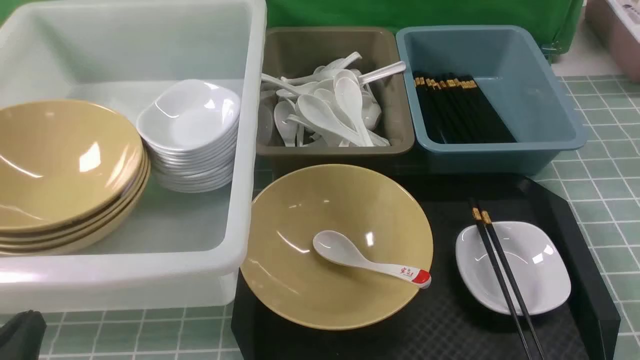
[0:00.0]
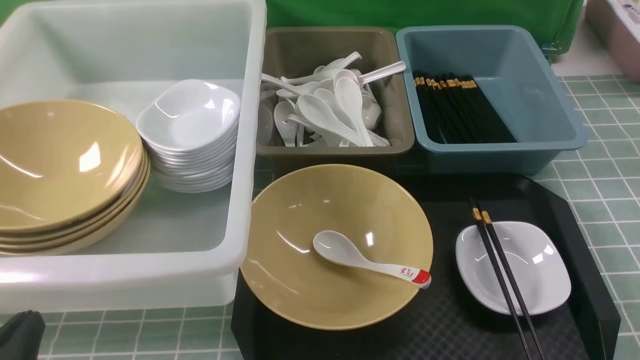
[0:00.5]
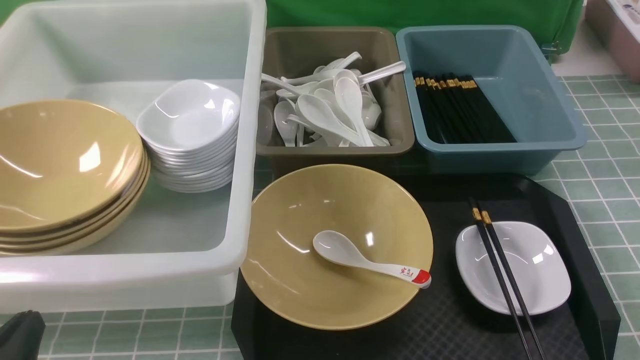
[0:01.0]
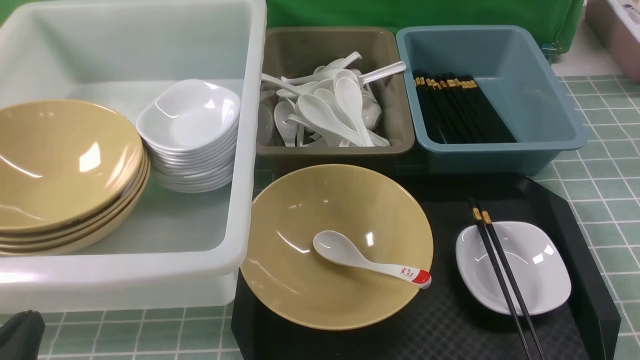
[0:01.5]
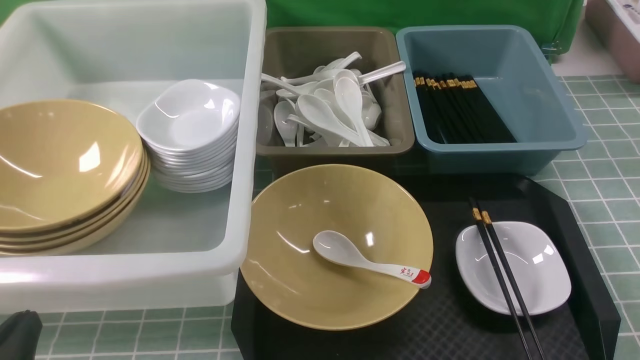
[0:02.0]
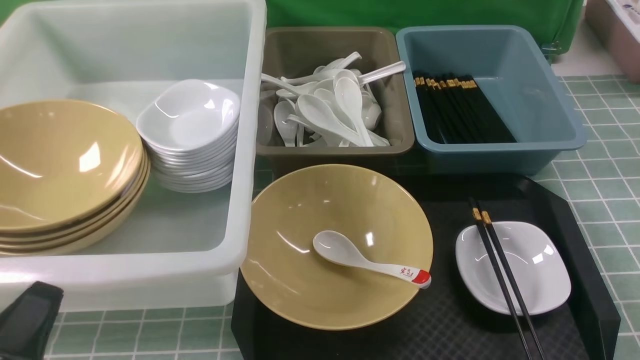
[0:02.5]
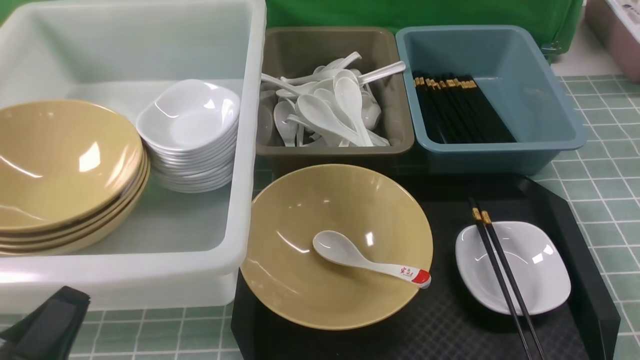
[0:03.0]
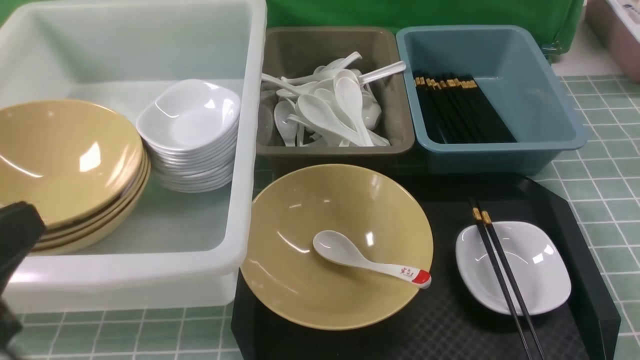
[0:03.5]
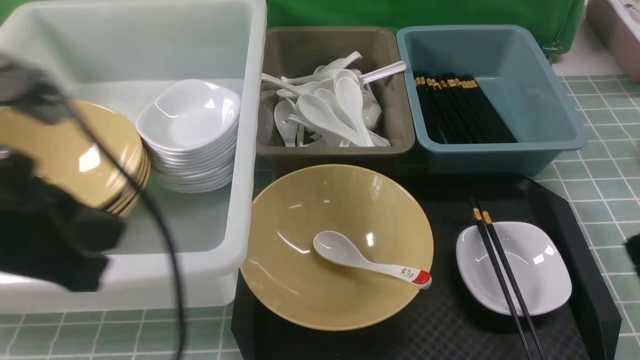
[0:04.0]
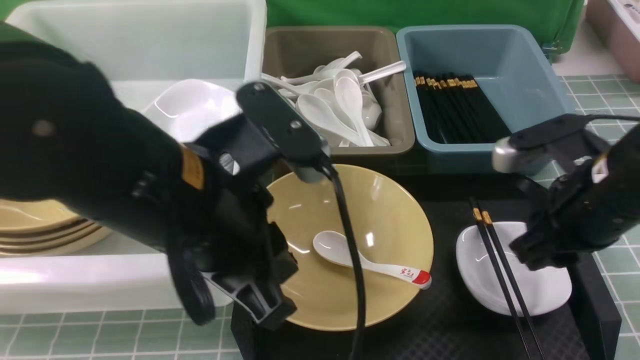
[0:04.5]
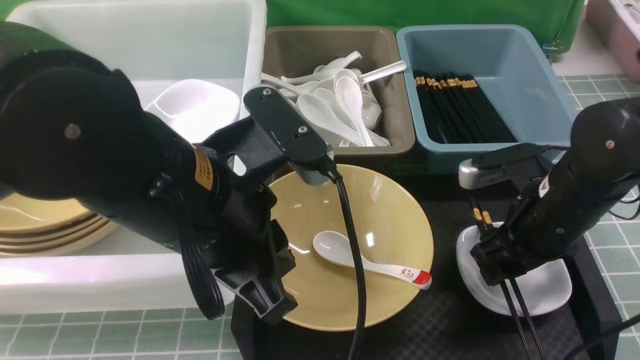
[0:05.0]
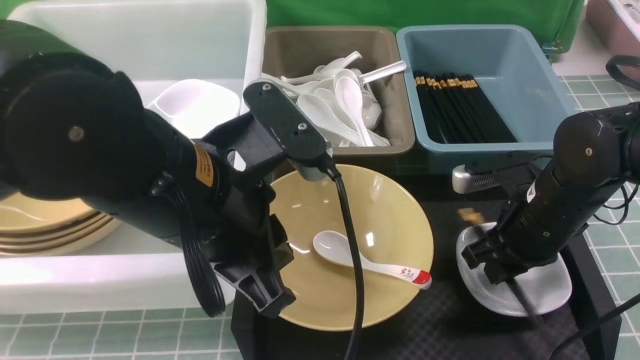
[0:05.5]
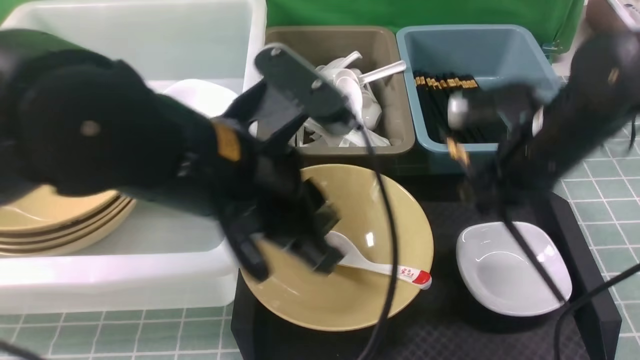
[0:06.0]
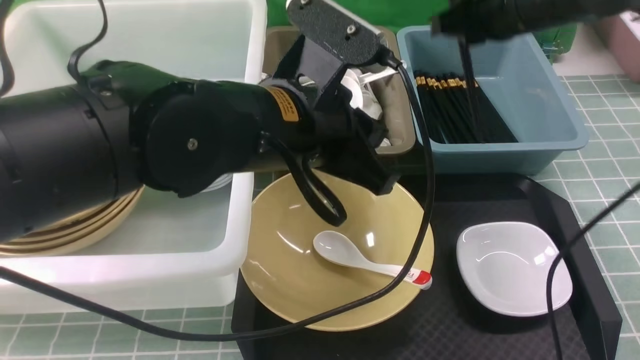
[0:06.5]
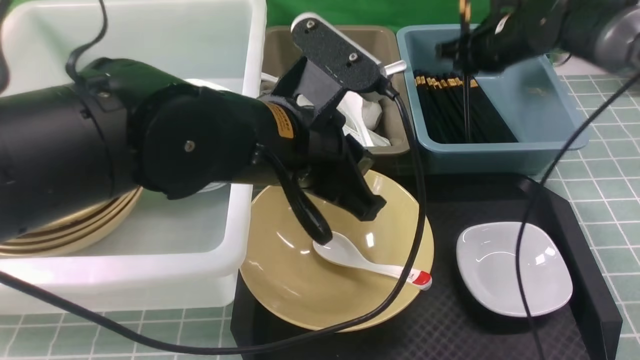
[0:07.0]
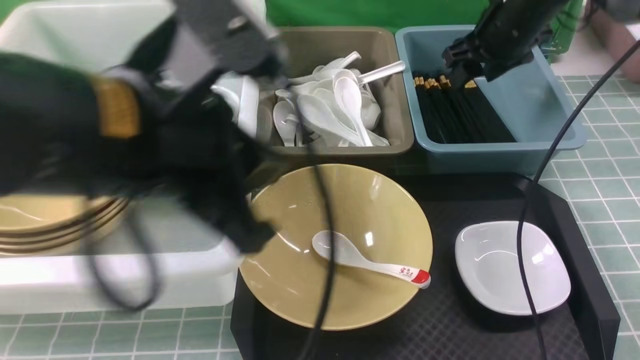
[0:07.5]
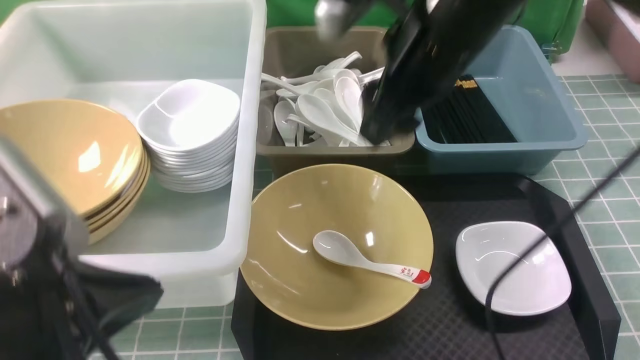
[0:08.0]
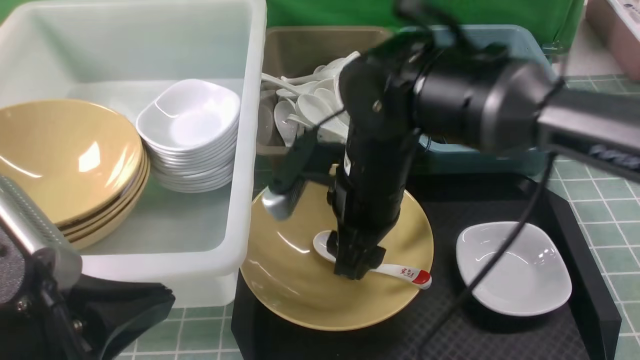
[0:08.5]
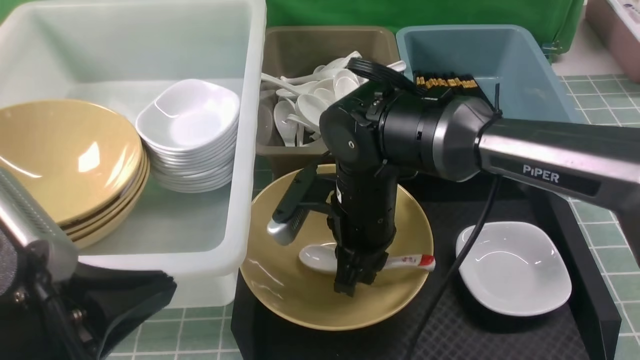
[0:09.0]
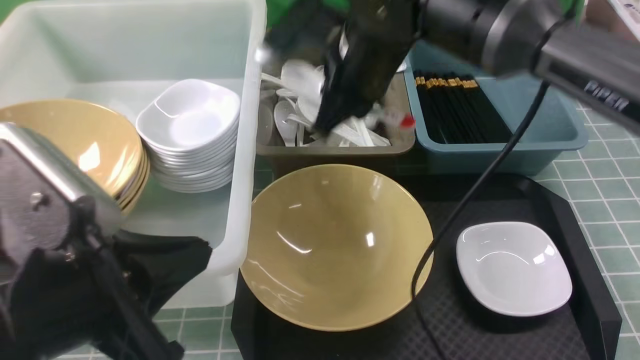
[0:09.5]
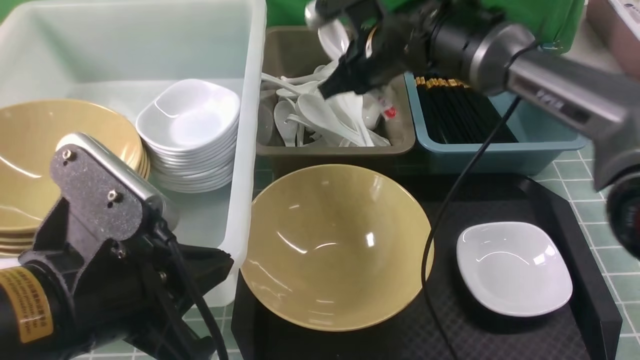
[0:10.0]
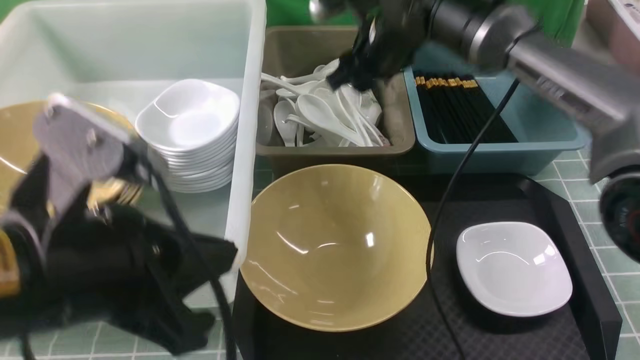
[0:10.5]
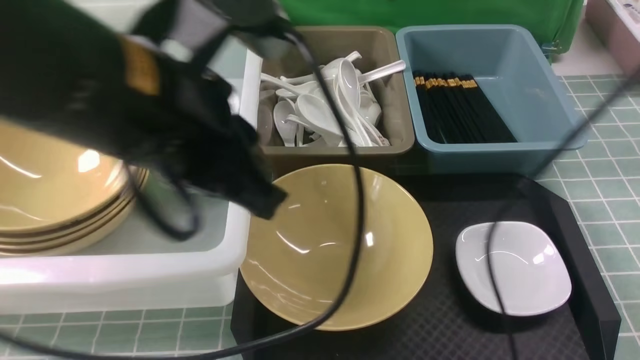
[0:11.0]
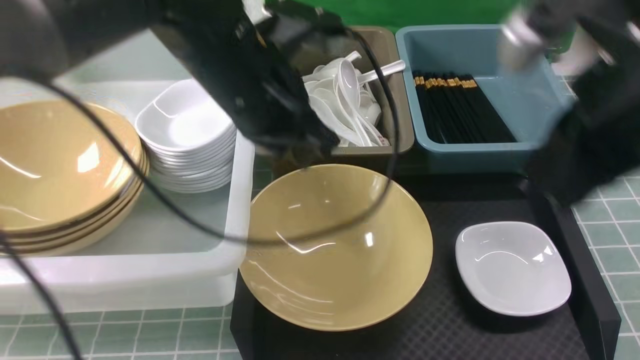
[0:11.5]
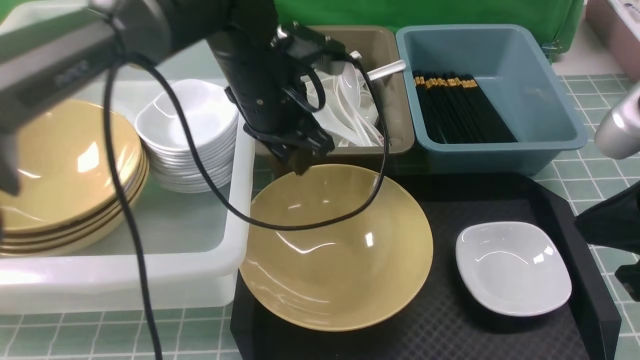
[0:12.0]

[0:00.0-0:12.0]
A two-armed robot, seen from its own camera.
Task of the whole recording: on blue table put chopsticks spoon bowls plates into blue grey white boxes.
Step, 0.0 to 5.5 s: use the right arm to grab the chopsticks.
Step, 6.0 to 7.0 s: use the right arm to put the chopsticks into the small storage box on the right.
Step, 8.0 to 9.0 s: use the right arm to grab the soup spoon in the middle.
Step, 9.5 to 10.0 s: use the right arm to put the soup spoon into the small storage box in the middle.
0.0 to 2.0 s: Neither gripper changes place.
2.0 to 4.0 s: The left gripper shifts approximately 20 cm upward and forward.
4.0 to 6.0 s: The left gripper heads to the right and forward, covering roughly 15 cm; the right gripper goes about 15 cm forward and to the left, and opens and closes again.
6.0 to 8.0 s: The right gripper shifts roughly 15 cm to the left and upward, moves approximately 20 cm forward and comes back, and opens. Meanwhile the left gripper moves to the left and backward, about 15 cm.
8.0 to 10.0 s: The left gripper moves approximately 5 cm, while the right gripper heads forward and downward, covering about 15 cm, and closes up.
10.0 to 12.0 s: The right gripper shifts some 35 cm backward and to the right, and opens, then closes again. The left gripper heads forward, covering roughly 25 cm, and opens its fingers.

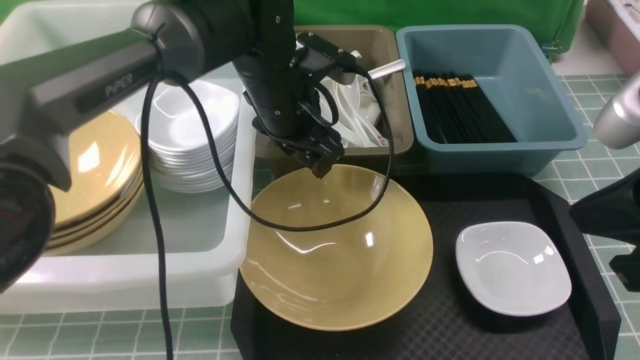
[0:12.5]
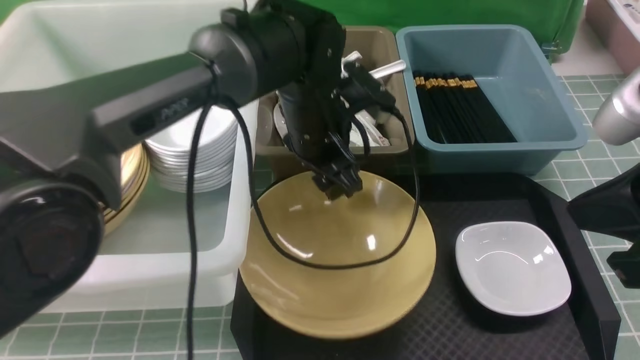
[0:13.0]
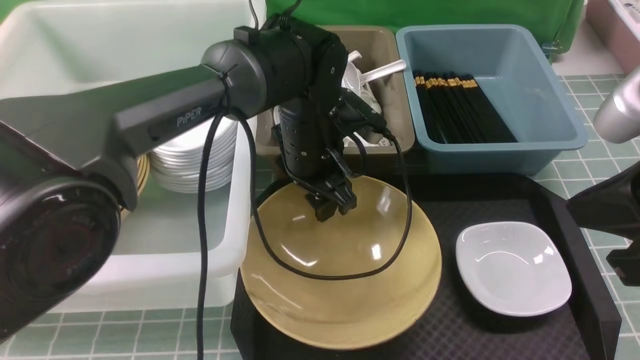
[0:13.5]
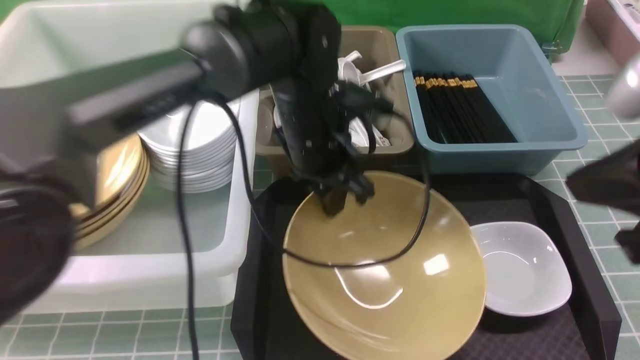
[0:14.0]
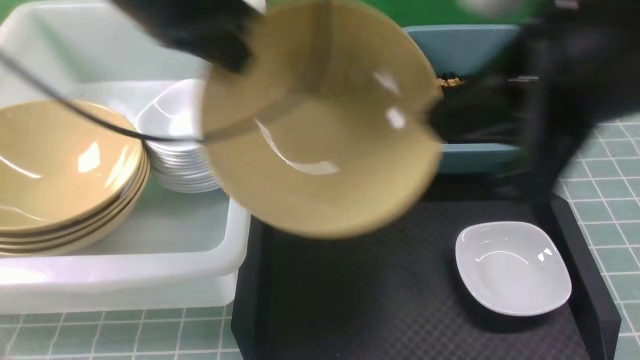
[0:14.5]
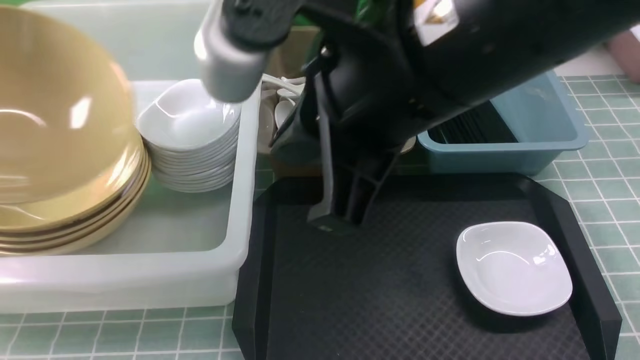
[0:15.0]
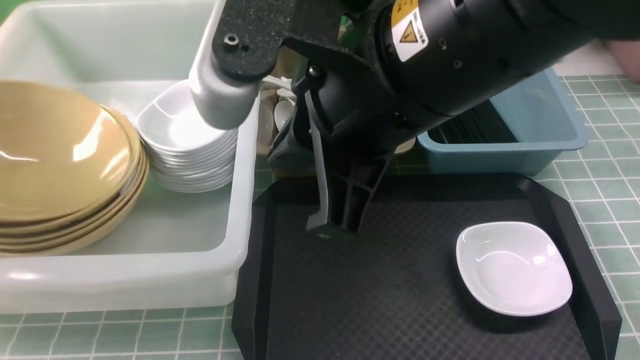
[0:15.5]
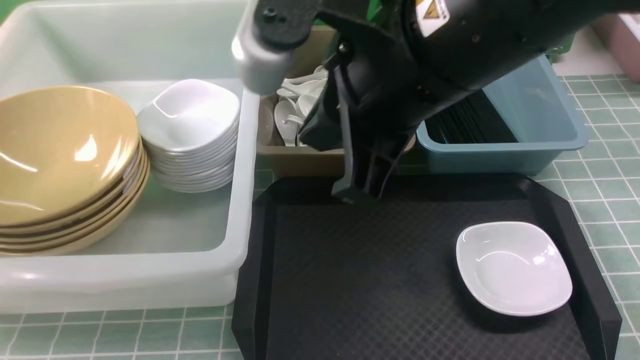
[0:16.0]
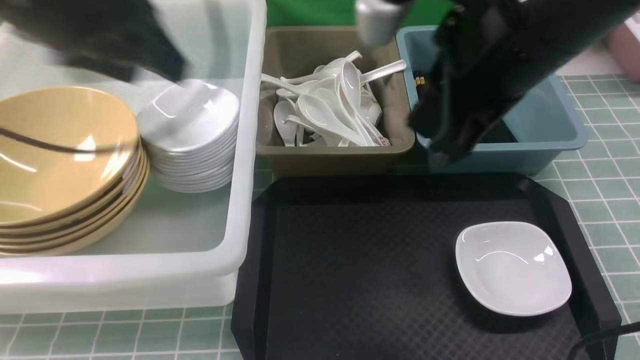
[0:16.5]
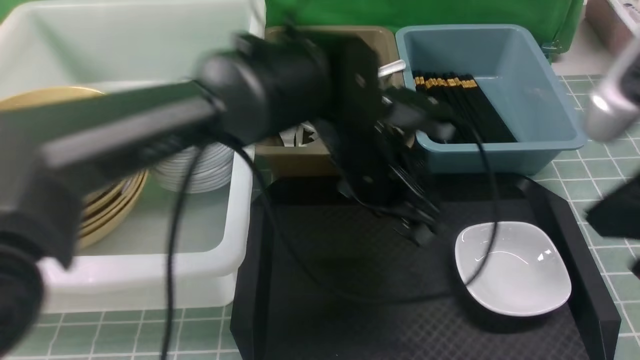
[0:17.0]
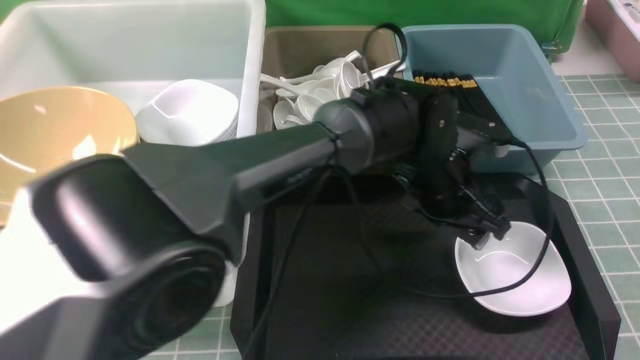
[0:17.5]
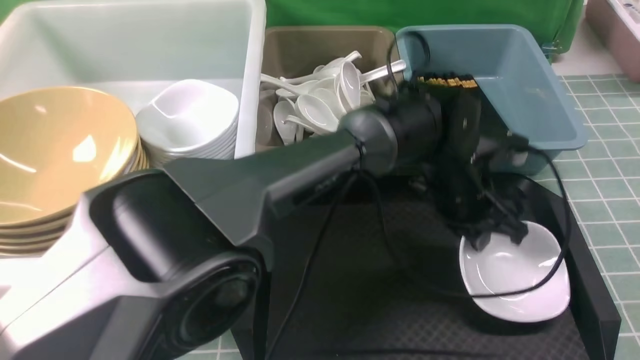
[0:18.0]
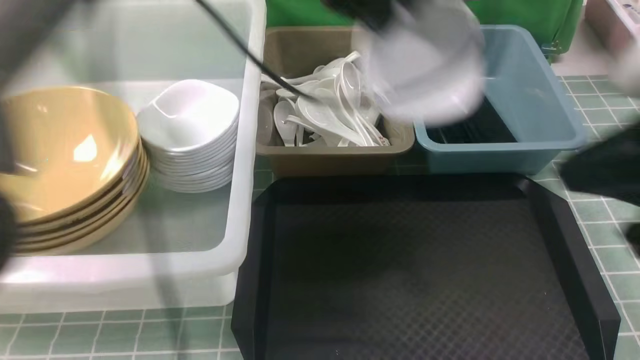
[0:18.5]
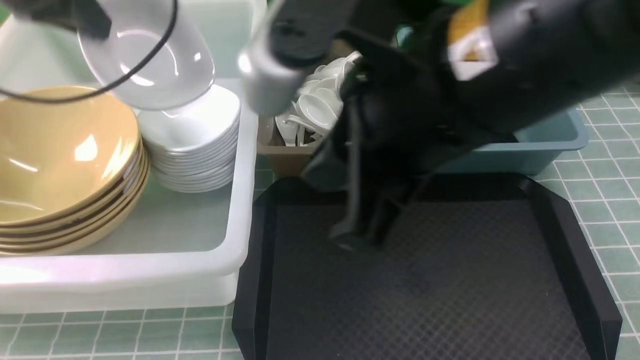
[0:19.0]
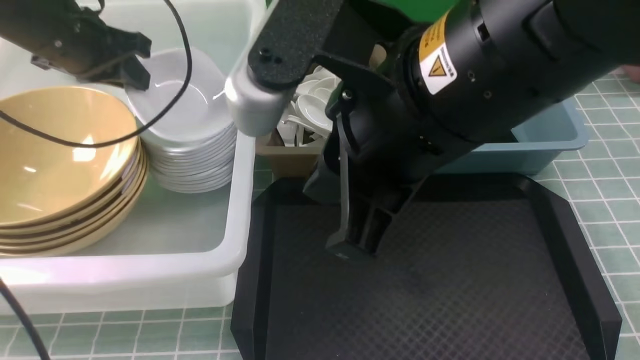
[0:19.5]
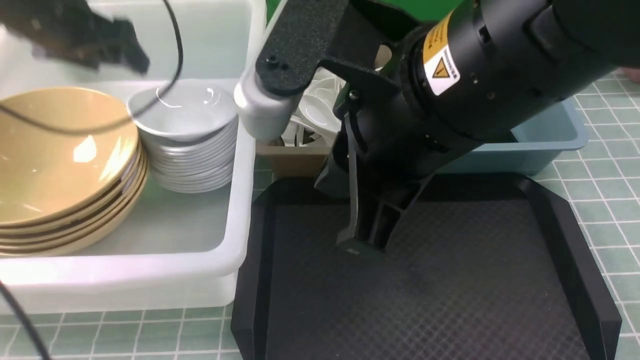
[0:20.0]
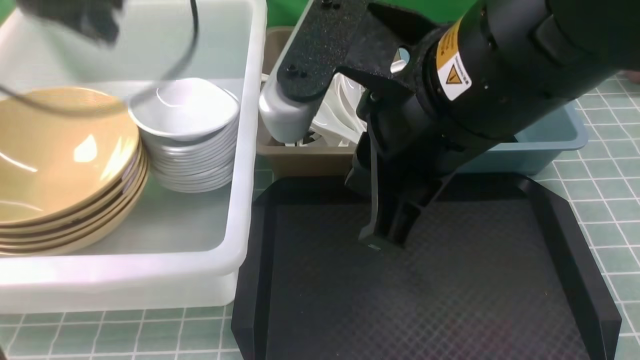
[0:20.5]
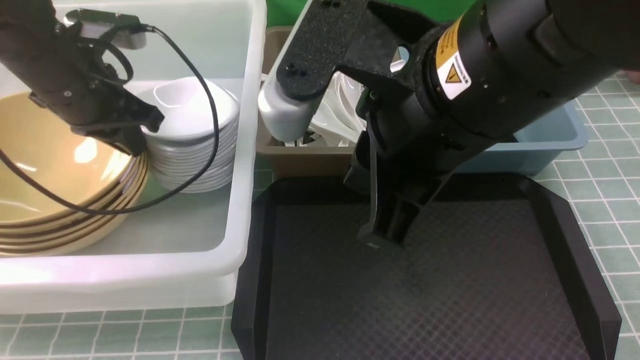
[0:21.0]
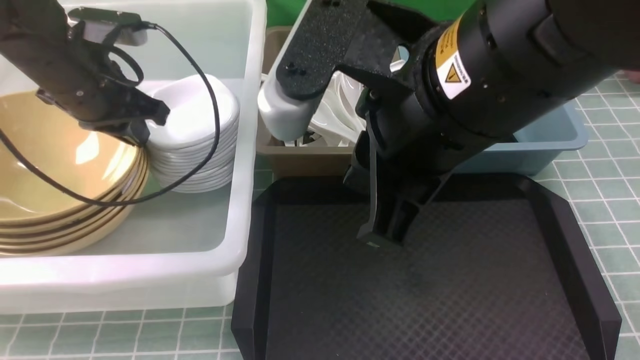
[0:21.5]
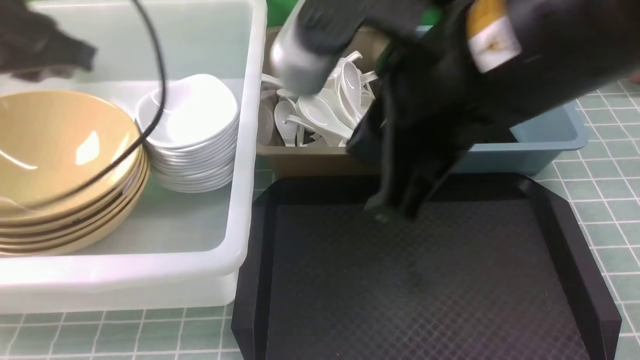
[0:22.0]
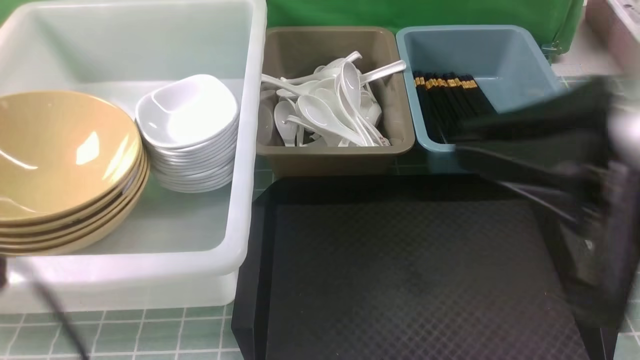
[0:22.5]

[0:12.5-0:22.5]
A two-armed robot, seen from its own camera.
Task of the whole recording: on blue table put chopsticks spoon bowls plates into blue grey white boxes.
Step, 14.5 to 15.5 s: use the left arm to put the noodle bowl into the large storage box on the left.
Step, 16.0 to 18.0 s: use the left arm to grab the plate.
Step, 18.5 to 19.5 s: use the left arm to put the plate into the large storage box on the left.
12.5 to 14.5 s: The left gripper heads upward, to the left and backward, covering roughly 20 cm, and closes its fingers. Meanwhile the right gripper heads to the left and upward, covering approximately 10 cm.
14.5 to 16.5 s: The right gripper heads forward, covering about 5 cm, and goes to the left and returns, approximately 10 cm each way, while the left gripper reaches approximately 25 cm to the left, then returns, and opens up.
16.5 to 18.5 s: The right gripper heads backward and to the right, covering some 10 cm. The left gripper travels to the right by approximately 15 cm, and closes.
18.5 to 20.5 s: The left gripper moves to the left, about 20 cm, and opens and closes again, while the right gripper goes about 10 cm to the left.
20.5 to 22.5 s: The right gripper travels to the right and backward by approximately 15 cm; the left gripper moves backward, roughly 30 cm.
